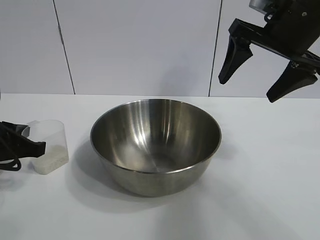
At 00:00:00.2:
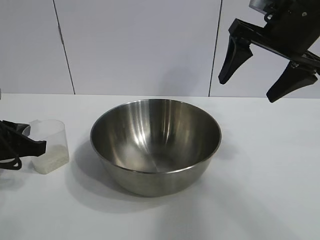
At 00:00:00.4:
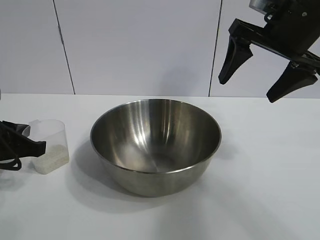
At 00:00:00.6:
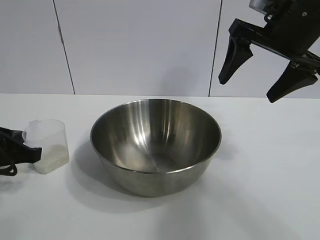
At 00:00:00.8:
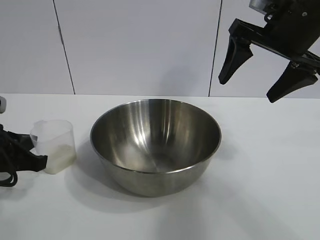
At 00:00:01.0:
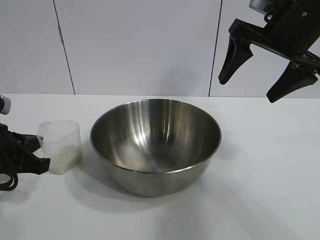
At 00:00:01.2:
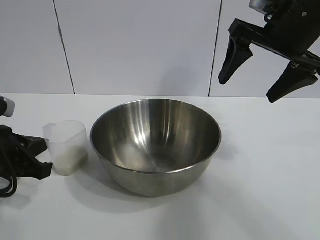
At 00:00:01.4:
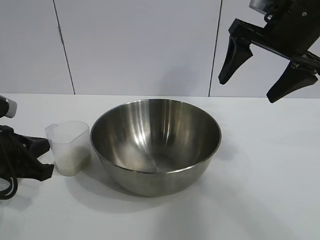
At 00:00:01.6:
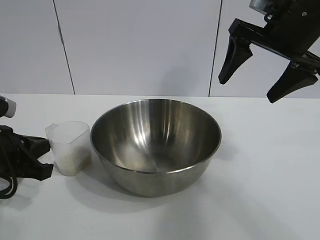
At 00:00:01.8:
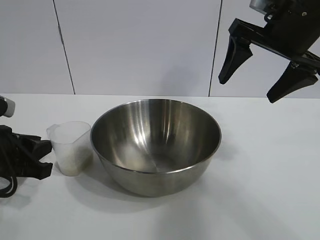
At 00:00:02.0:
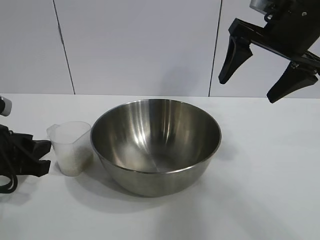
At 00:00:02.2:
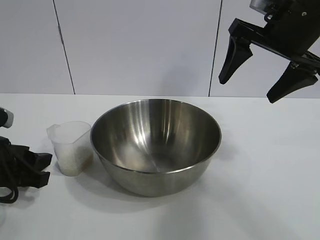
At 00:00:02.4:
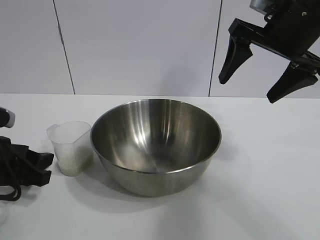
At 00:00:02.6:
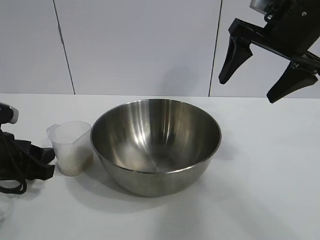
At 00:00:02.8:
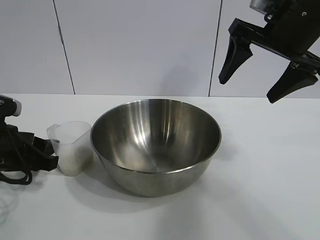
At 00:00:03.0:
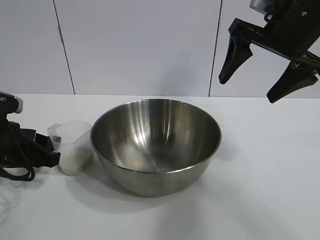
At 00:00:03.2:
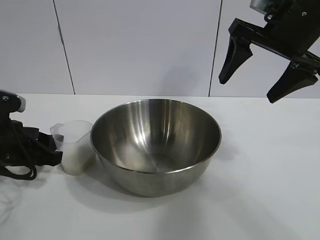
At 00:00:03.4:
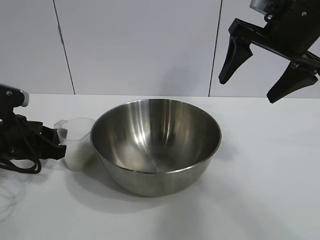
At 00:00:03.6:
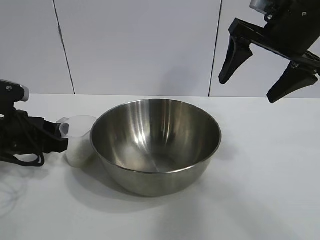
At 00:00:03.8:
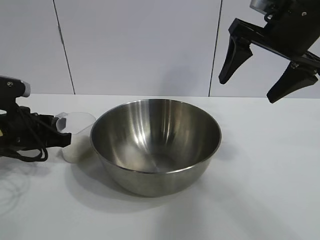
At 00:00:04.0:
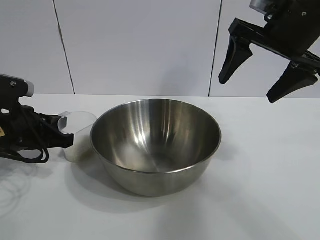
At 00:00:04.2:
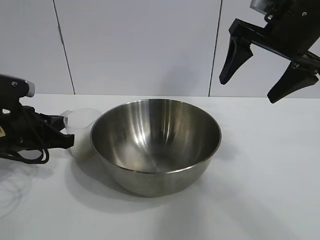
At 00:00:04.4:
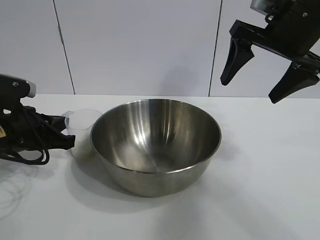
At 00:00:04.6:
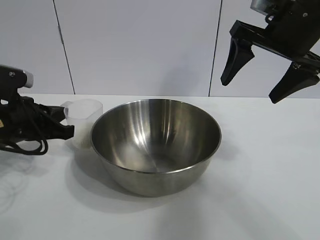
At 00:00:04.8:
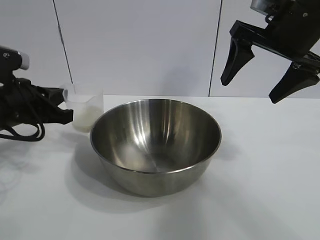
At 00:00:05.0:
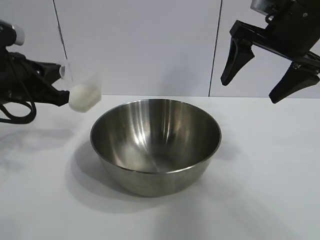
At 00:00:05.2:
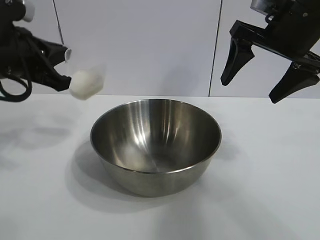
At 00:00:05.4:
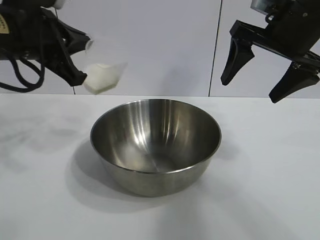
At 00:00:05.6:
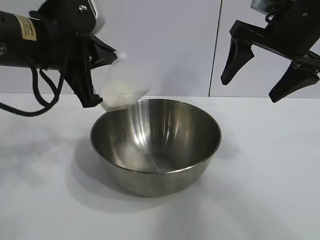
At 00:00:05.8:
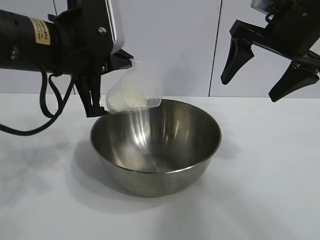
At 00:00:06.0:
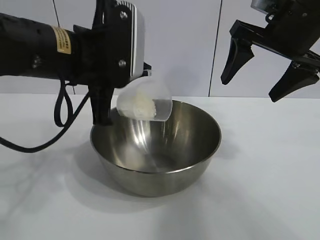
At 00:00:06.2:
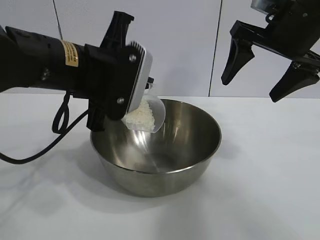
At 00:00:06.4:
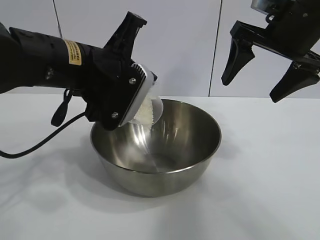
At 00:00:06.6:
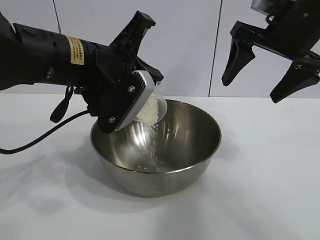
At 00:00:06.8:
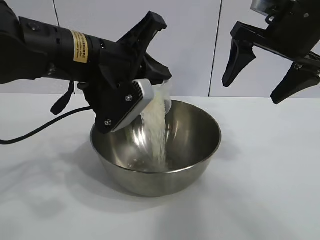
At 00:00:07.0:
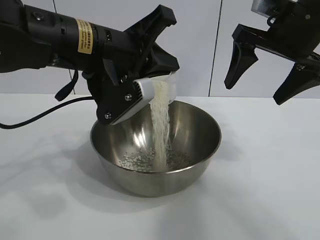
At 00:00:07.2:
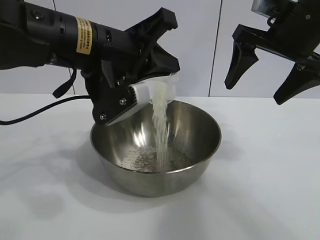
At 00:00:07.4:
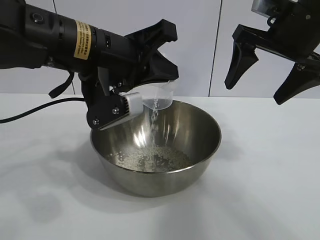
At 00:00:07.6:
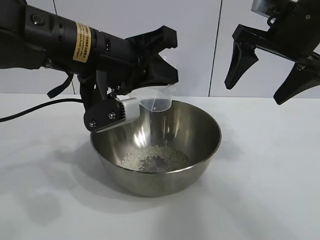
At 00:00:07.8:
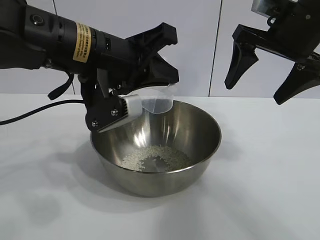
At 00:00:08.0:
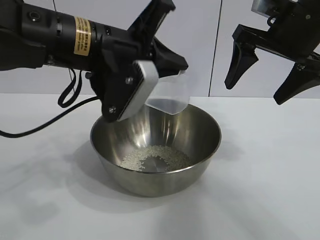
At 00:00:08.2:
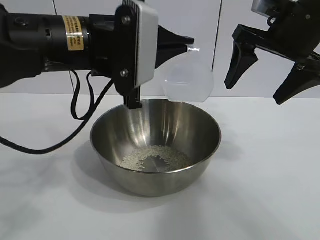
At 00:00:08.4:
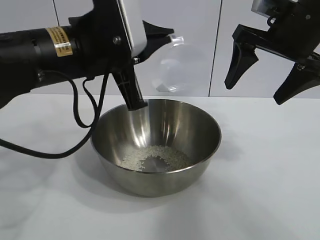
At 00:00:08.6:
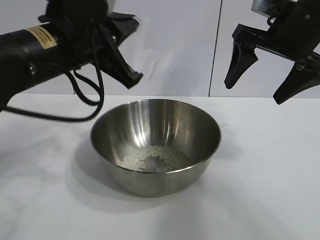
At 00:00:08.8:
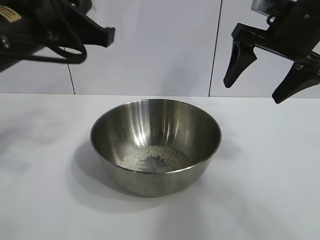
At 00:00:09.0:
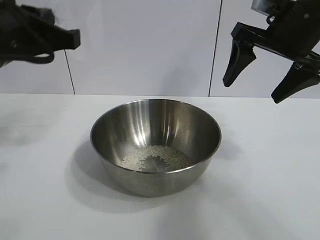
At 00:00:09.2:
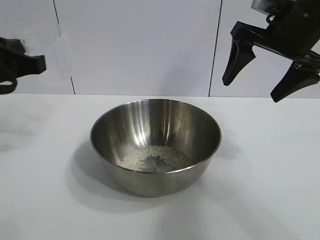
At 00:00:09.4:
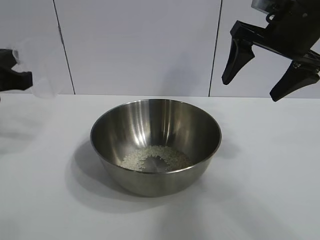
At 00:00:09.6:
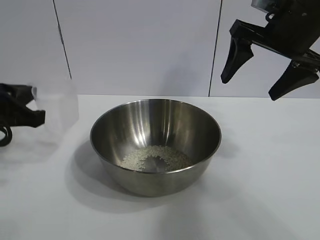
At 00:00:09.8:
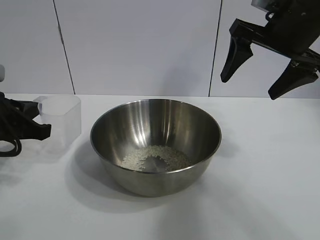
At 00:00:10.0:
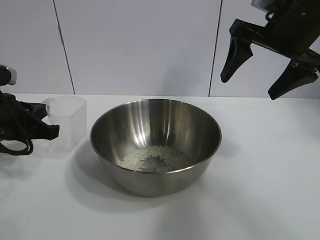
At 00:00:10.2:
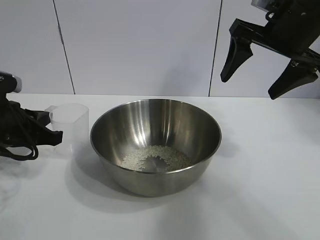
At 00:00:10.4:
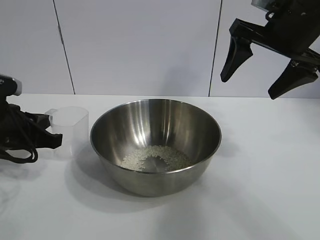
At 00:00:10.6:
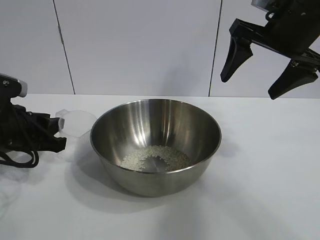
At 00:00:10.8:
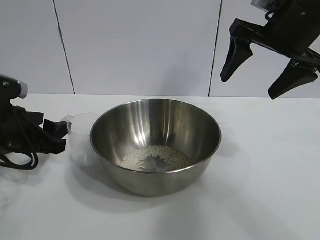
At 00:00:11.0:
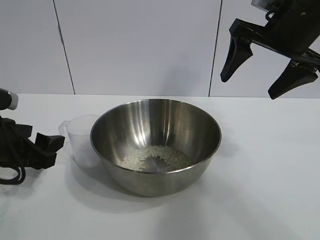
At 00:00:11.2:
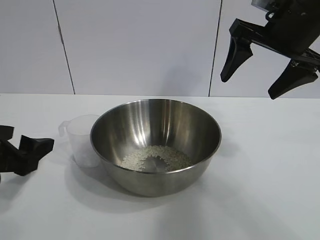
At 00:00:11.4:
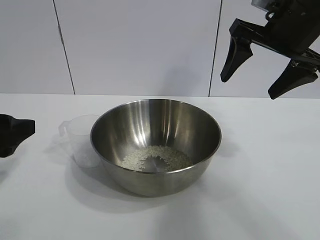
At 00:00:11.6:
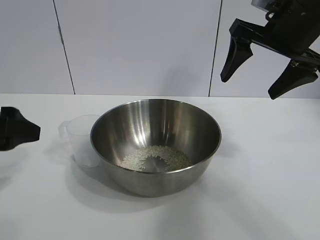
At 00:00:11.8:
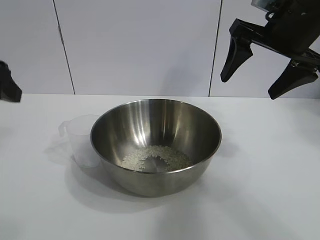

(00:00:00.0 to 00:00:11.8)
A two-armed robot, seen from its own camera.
Task of the whole recording: the right gripper grasp the rice container and place it in the center of the table, the left gripper grasp the rice scoop and pour the rice into the rice container.
Step, 00:00:00.0 - 00:00:04.2: Grasp the cup with rice in it with left gripper.
Step, 00:00:04.4 - 00:00:07.6: Pour the rice from the cup into the bowl with the left gripper.
Step, 00:00:07.8 - 00:00:10.8: Place the cup on the table with the left gripper.
